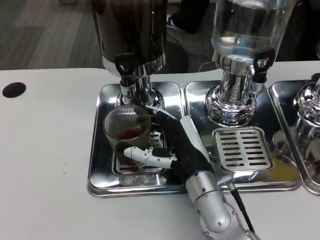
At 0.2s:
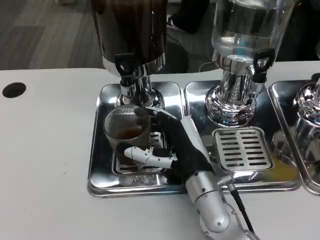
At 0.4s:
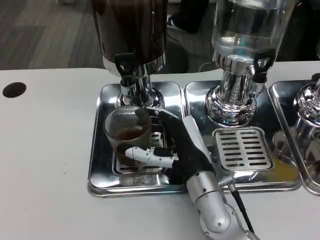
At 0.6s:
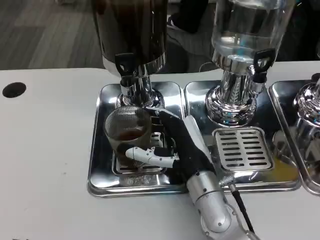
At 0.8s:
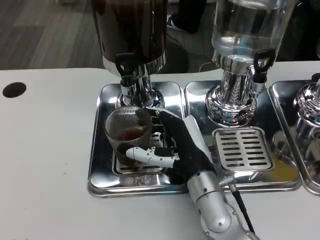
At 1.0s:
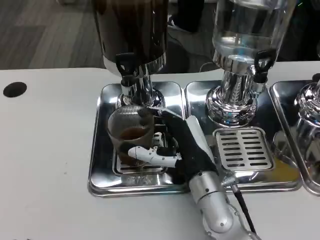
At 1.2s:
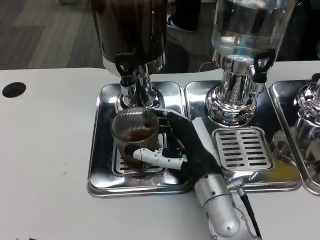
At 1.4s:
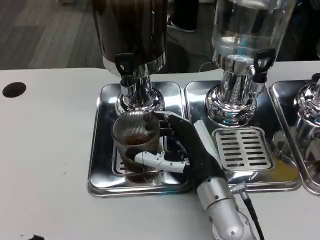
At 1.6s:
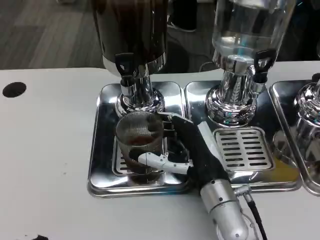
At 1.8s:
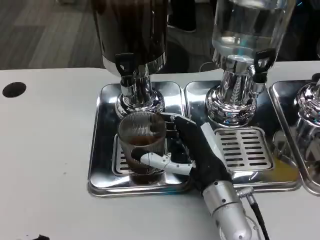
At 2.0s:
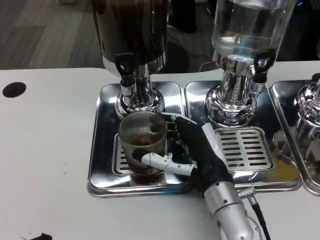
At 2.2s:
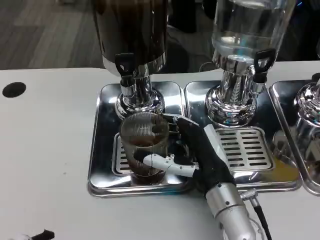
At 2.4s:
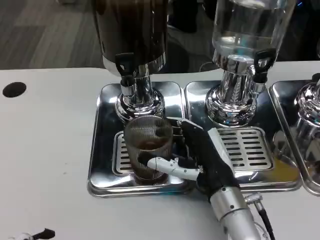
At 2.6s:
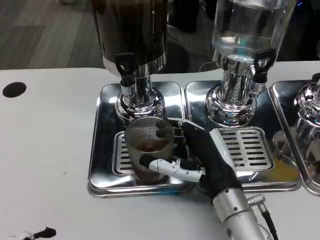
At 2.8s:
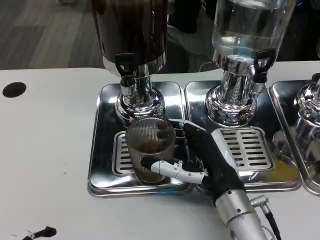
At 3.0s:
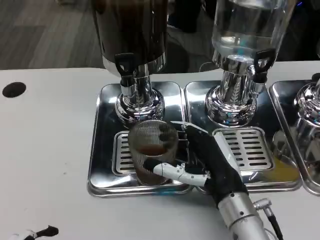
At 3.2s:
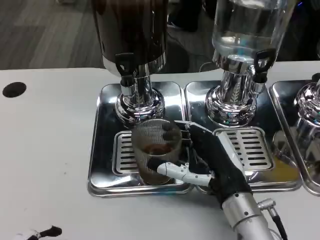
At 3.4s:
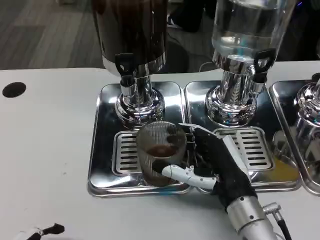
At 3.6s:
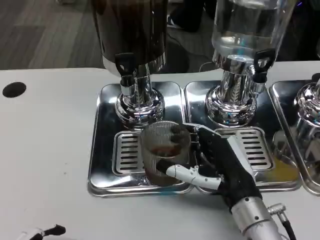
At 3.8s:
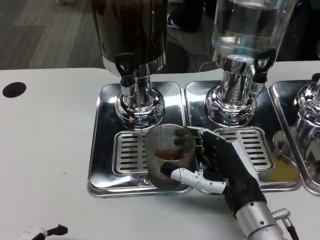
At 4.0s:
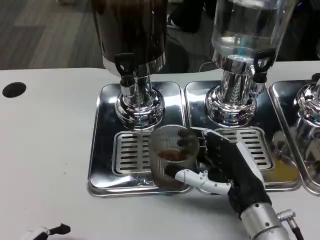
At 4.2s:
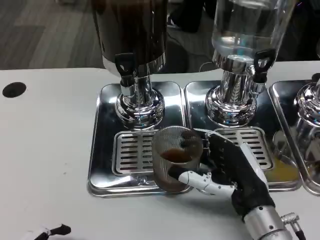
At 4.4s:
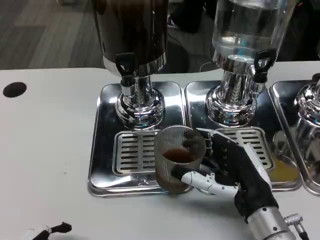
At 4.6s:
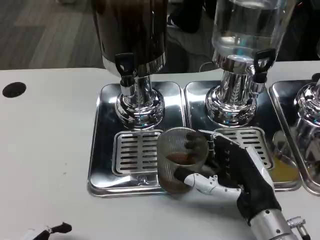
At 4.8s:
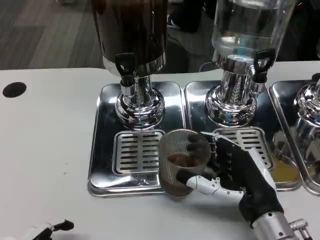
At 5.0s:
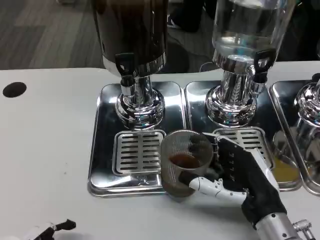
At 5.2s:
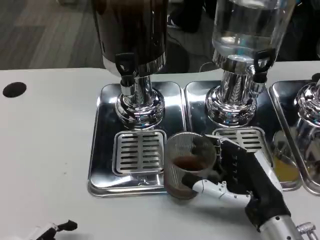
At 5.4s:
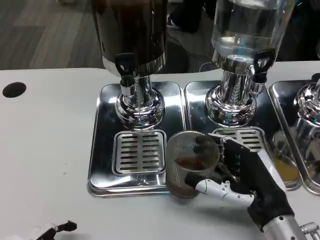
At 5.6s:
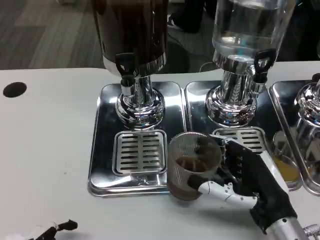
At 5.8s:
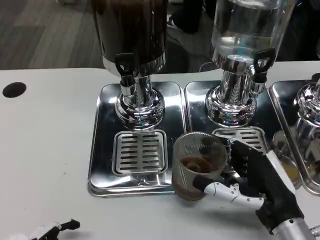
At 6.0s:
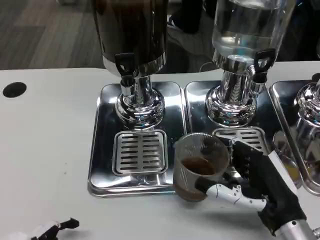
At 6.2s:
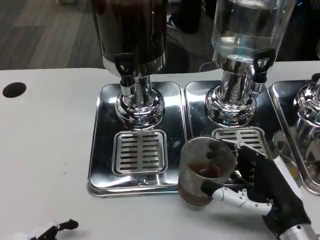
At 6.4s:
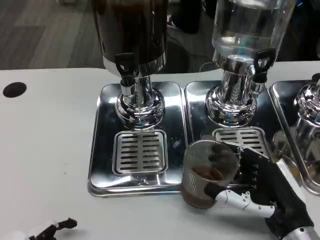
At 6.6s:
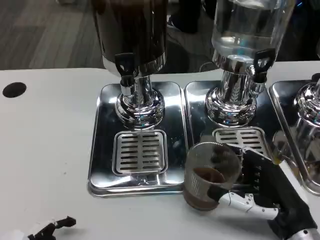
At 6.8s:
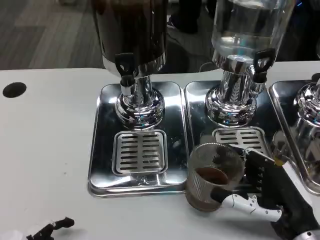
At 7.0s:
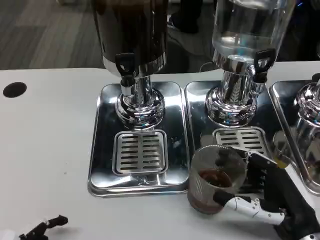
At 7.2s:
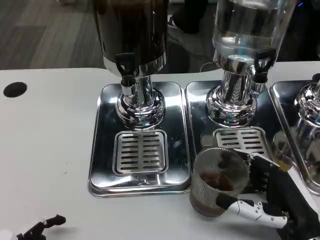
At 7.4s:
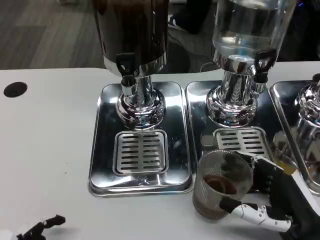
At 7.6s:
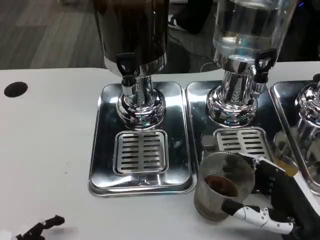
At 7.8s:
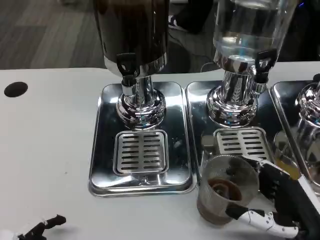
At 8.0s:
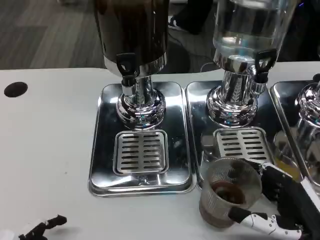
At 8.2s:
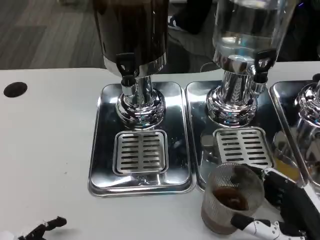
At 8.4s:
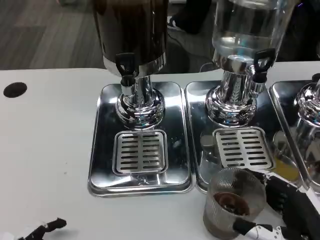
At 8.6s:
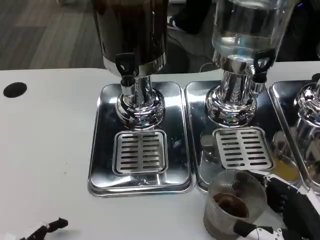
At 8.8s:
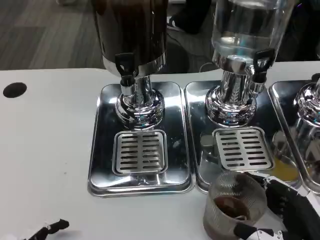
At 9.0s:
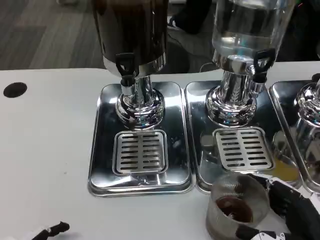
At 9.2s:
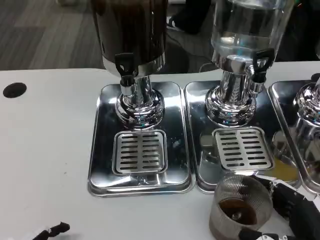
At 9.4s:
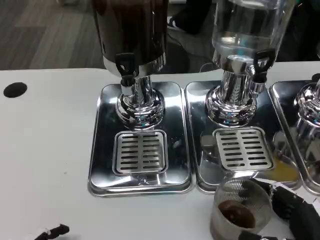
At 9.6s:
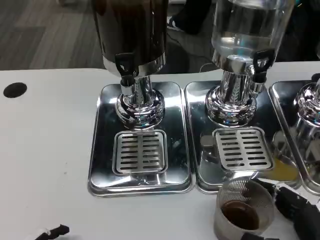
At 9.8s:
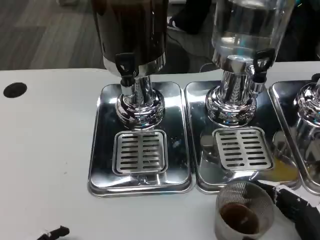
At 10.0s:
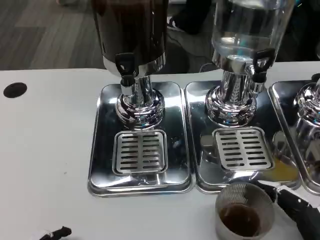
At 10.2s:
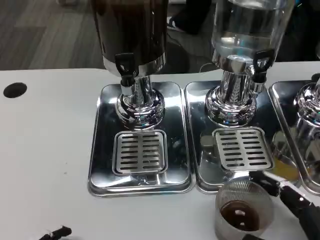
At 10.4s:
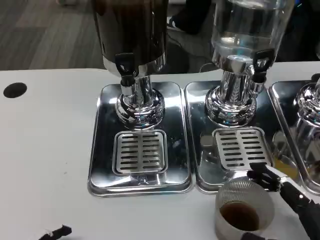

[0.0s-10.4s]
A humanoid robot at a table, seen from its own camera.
Task of the whole recording: Grasp the cup under the faucet to collect the drink, then remove the cup.
0.0s to 3.0s: The hands stay close to where they were, moving slightly.
3.0s to 4.4s: There are only small adjustments of the hands.
4.4s to 6.0s: The hands make only small movements.
6.0s to 7.4s: There are only small adjustments of the hands.
7.4s to 10.4s: The hands stay close to where they were, moving slightly.

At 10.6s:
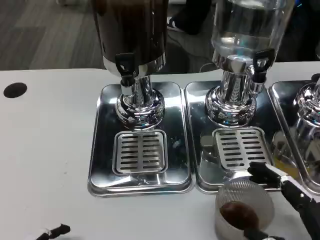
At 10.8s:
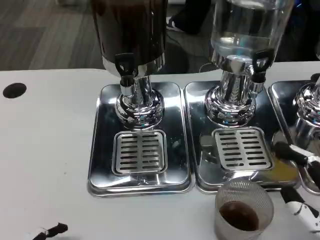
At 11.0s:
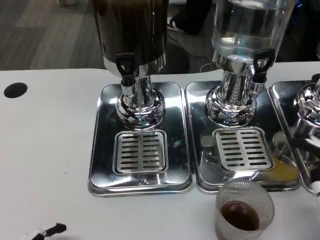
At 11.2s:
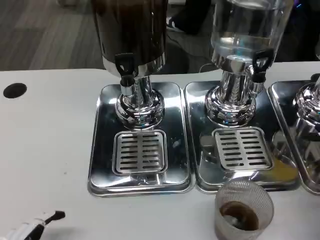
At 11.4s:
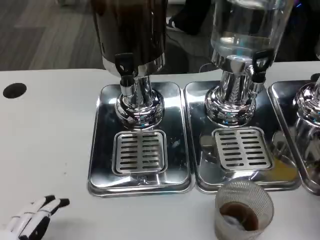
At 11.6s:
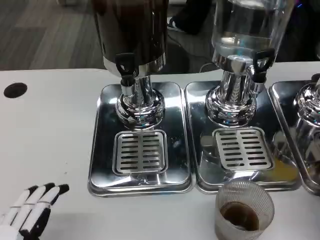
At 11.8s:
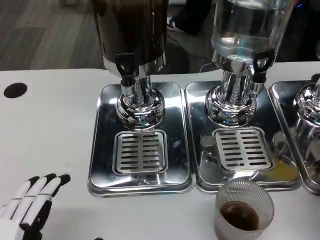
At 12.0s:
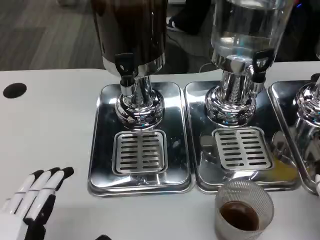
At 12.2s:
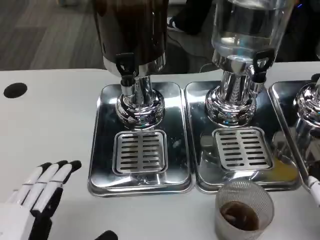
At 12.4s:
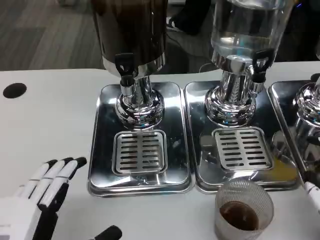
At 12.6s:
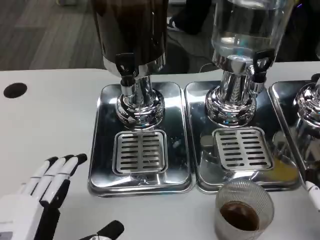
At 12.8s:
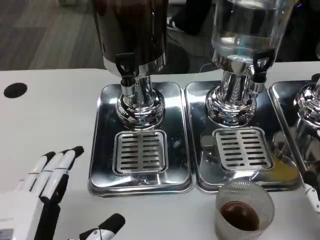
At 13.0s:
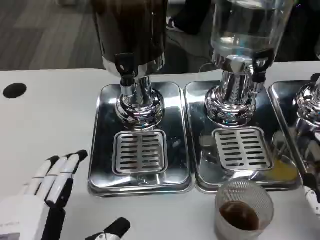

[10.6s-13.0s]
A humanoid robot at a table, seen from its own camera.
Task of the whole recording: Grasp the cup under the faucet to collect the drink, then remove the cup.
10.6s to 11.8s: The right hand goes about 5 cm upward.
11.8s to 13.0s: The hands stay close to where they were, moving slightly.

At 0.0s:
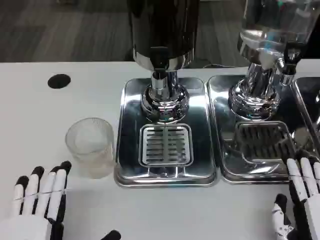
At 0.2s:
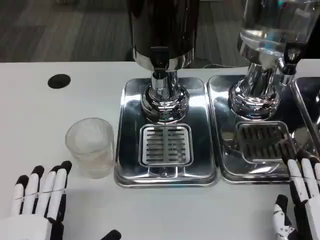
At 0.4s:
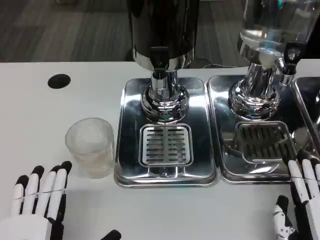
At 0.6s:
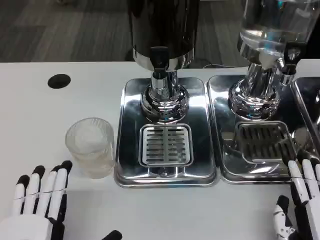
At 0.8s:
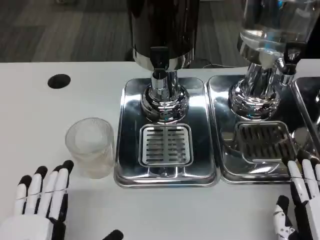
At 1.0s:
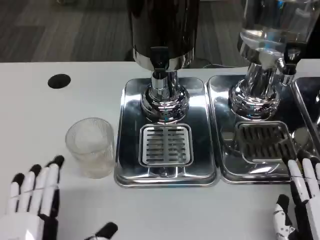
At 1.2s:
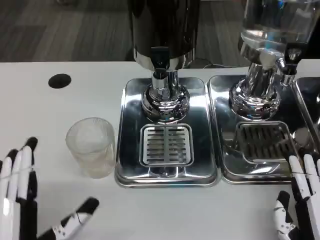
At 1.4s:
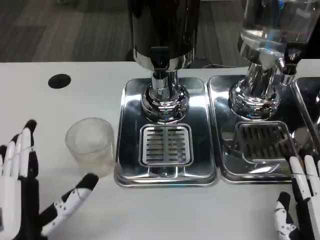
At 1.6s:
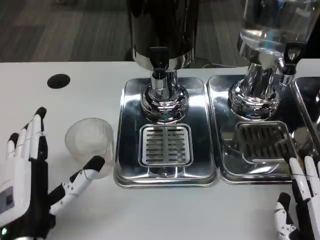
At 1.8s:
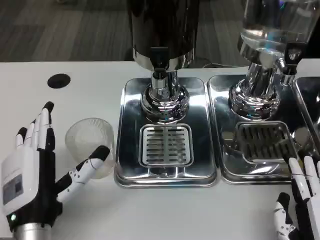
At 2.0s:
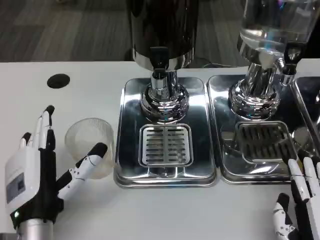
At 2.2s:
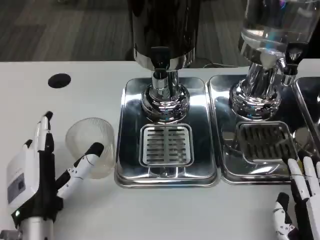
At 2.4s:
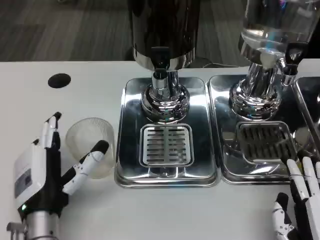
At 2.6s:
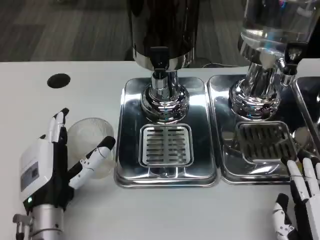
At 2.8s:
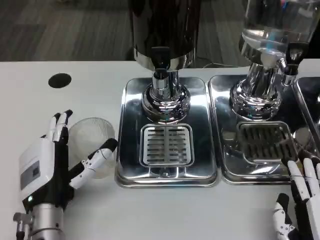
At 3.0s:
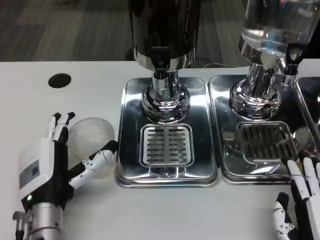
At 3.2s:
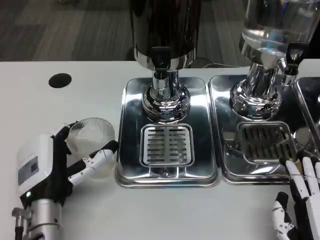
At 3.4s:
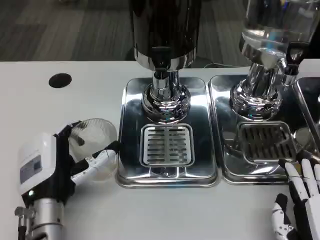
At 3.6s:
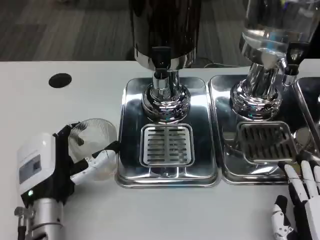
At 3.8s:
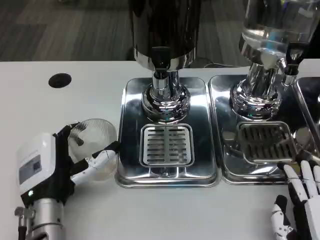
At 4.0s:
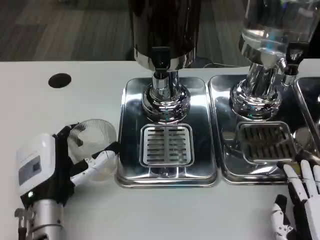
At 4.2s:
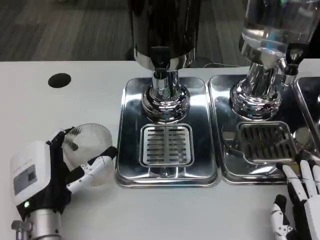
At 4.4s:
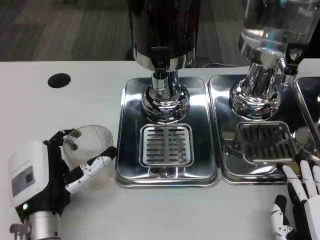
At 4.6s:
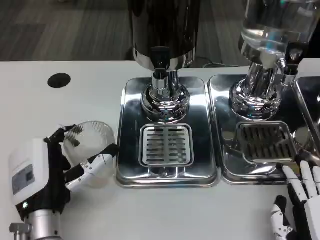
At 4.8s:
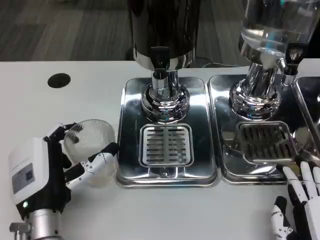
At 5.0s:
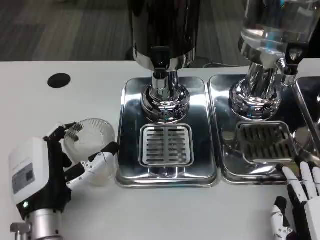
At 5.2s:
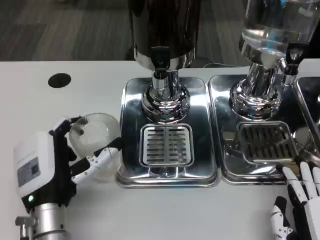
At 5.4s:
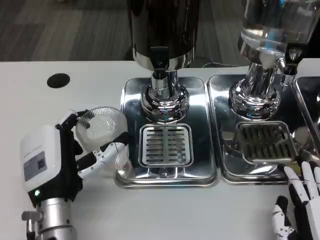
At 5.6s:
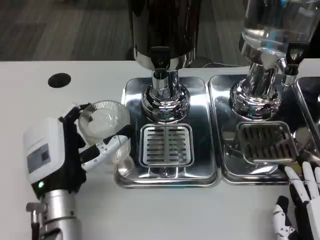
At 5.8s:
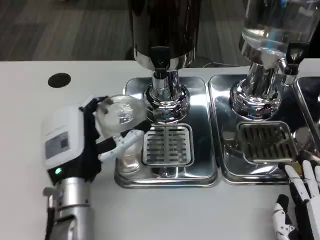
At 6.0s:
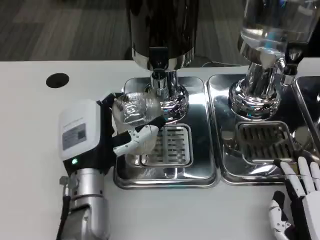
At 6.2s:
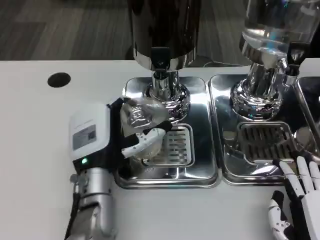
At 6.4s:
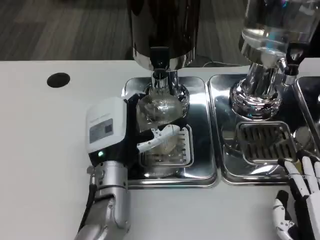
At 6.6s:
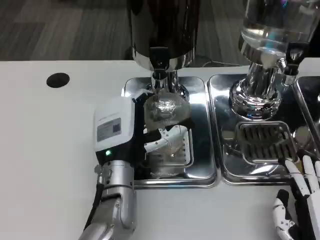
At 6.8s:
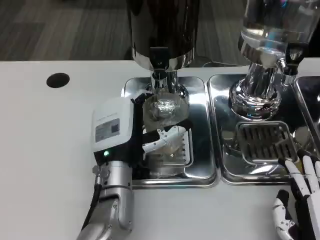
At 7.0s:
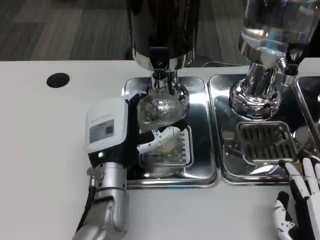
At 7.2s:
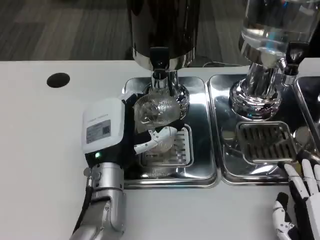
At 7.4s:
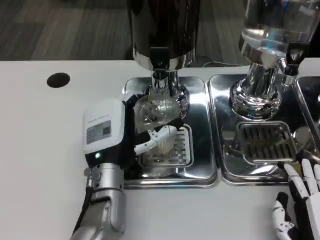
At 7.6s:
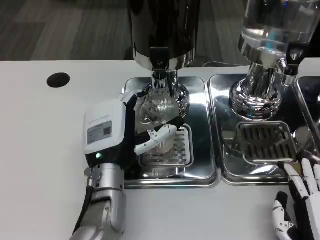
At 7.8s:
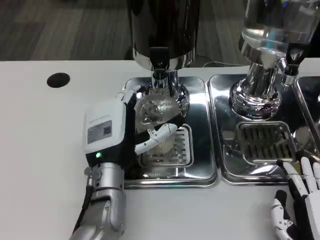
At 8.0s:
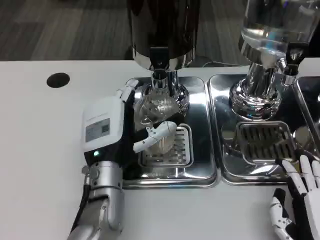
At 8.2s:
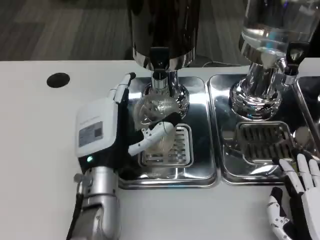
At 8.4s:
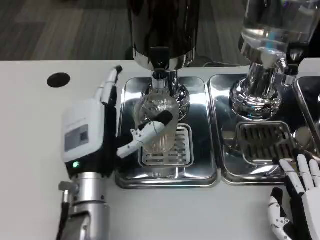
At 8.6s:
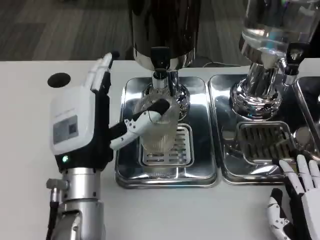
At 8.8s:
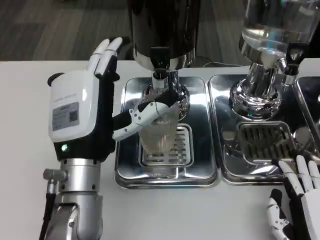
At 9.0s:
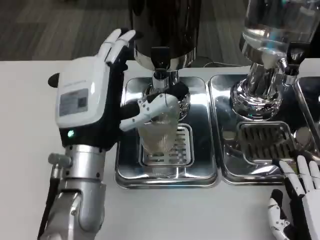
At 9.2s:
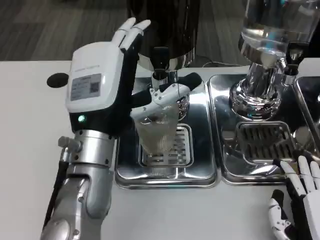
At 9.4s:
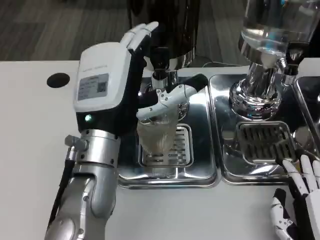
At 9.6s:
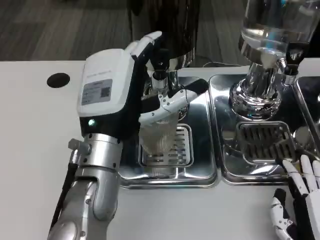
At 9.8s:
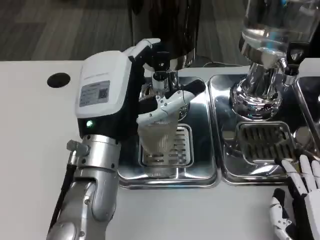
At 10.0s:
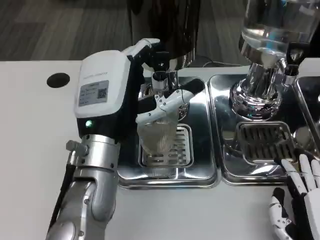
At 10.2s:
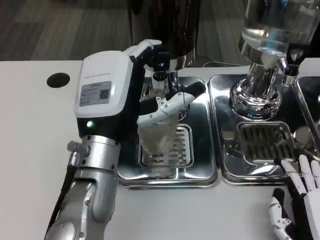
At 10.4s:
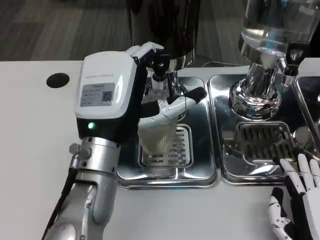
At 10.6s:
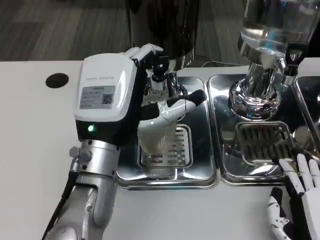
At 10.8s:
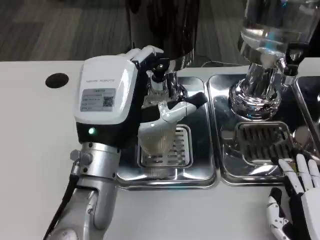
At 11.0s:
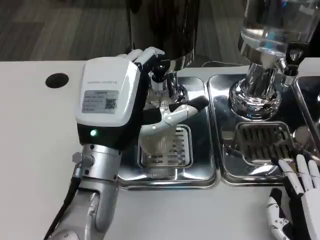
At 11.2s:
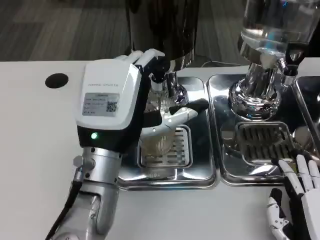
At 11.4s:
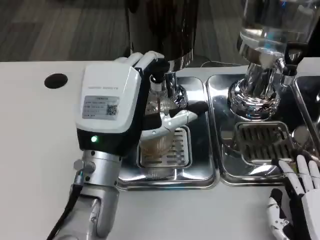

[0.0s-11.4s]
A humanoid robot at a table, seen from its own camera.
Task of the whole recording: Grasp the cup under the faucet to collect the drink, then remove the cup.
0.0s to 1.4s: The left hand travels forward by roughly 5 cm.
1.4s to 2.8s: The left hand heads forward, covering some 10 cm.
2.8s to 5.6s: The hands move only a little.
5.6s to 7.2s: The left hand shifts roughly 5 cm to the right.
7.2s to 8.6s: The left hand is displaced upward by about 5 cm.
8.6s to 10.0s: The hands stay close to where they were, moving slightly.
